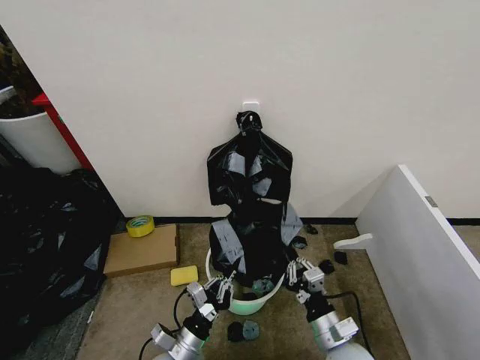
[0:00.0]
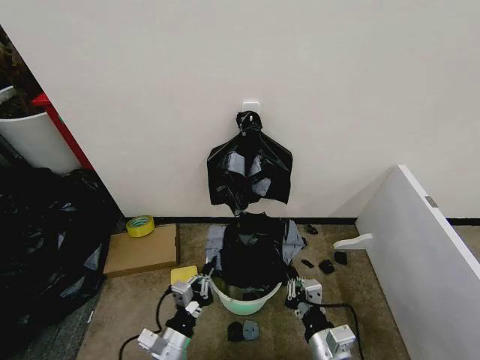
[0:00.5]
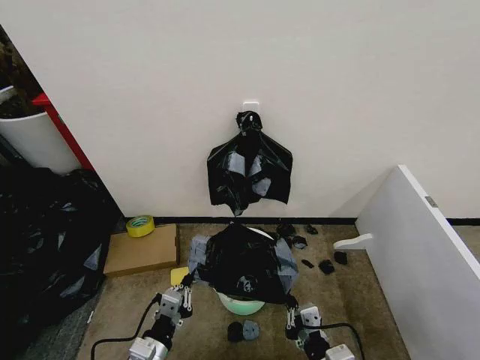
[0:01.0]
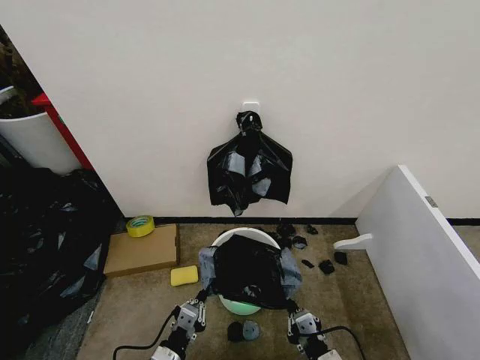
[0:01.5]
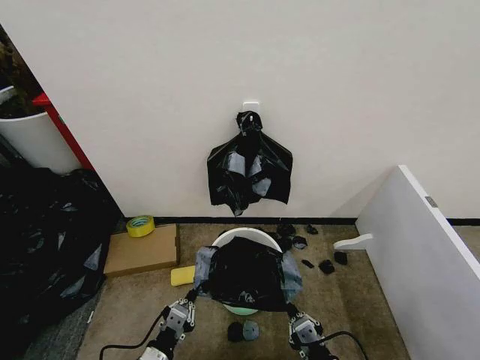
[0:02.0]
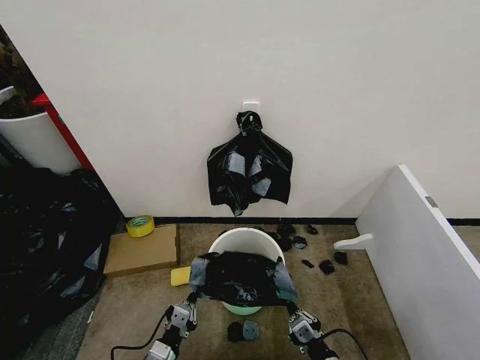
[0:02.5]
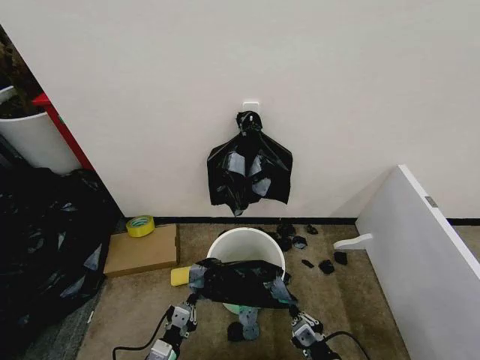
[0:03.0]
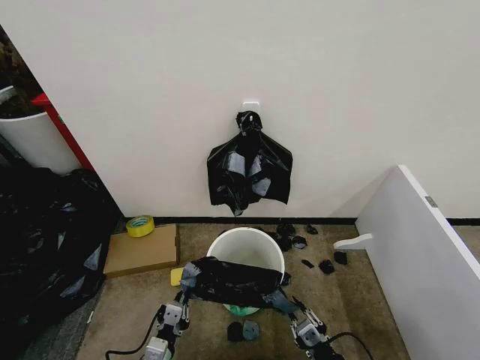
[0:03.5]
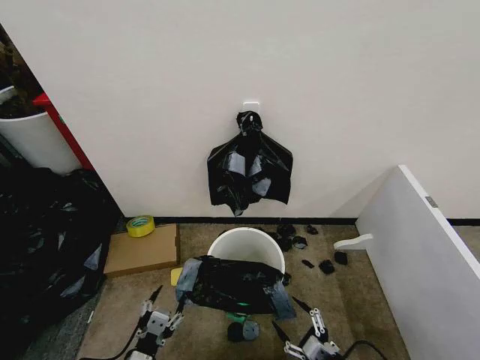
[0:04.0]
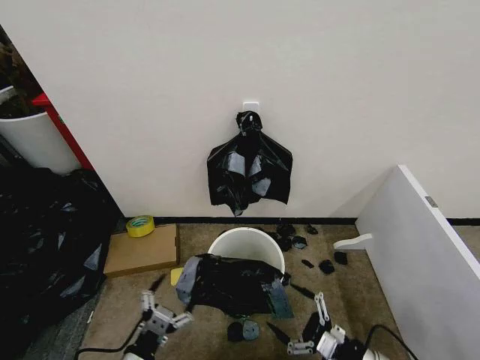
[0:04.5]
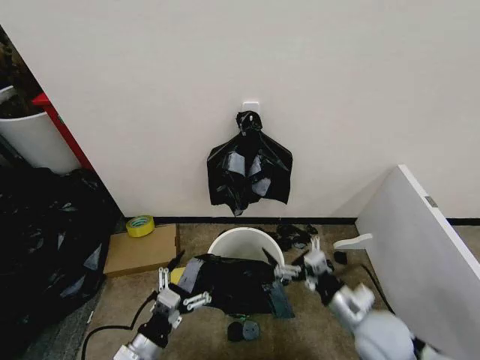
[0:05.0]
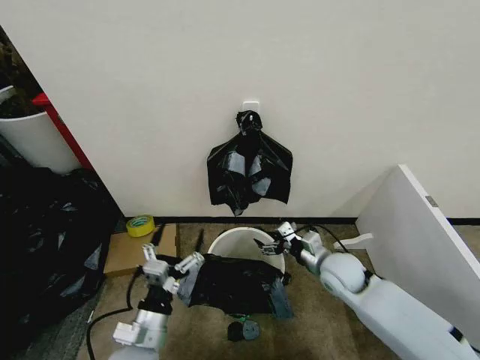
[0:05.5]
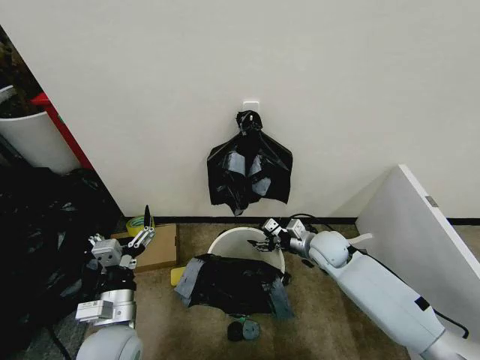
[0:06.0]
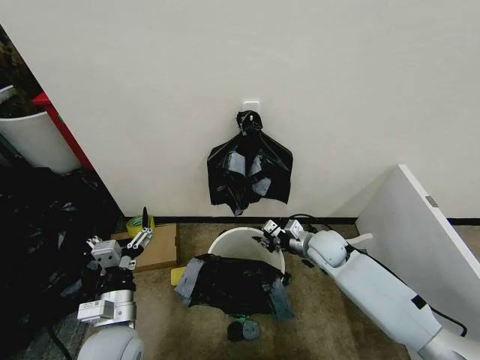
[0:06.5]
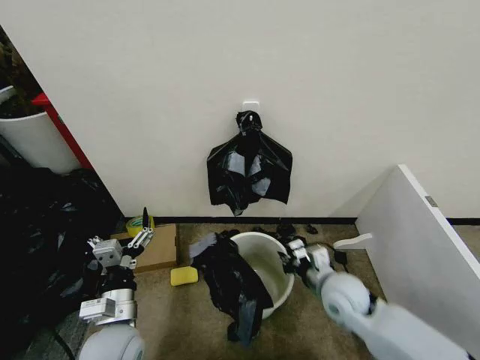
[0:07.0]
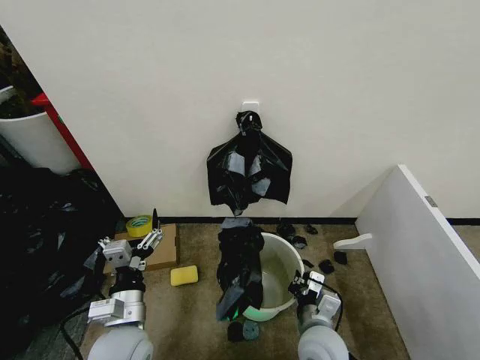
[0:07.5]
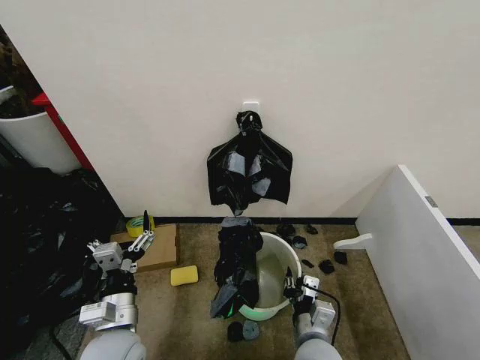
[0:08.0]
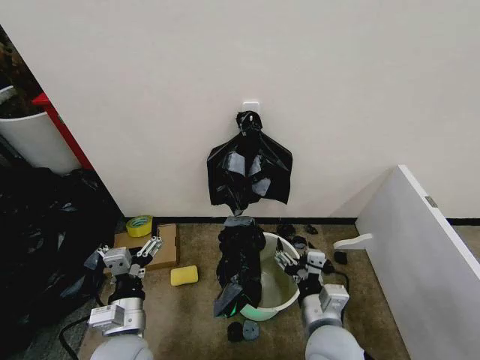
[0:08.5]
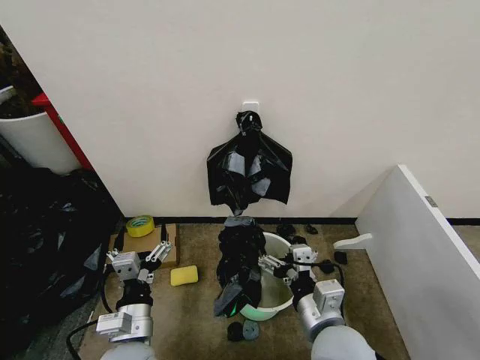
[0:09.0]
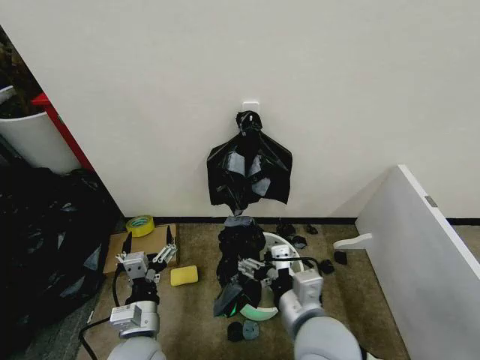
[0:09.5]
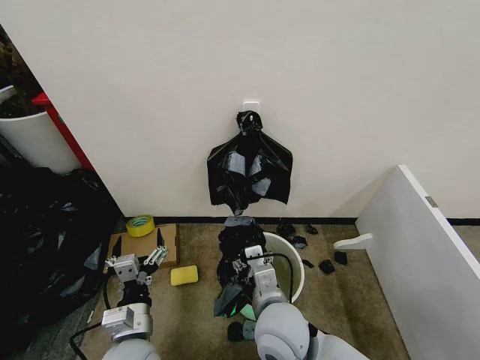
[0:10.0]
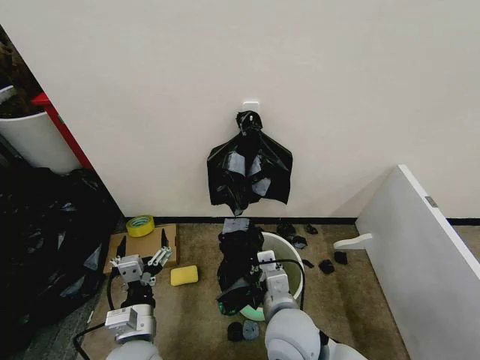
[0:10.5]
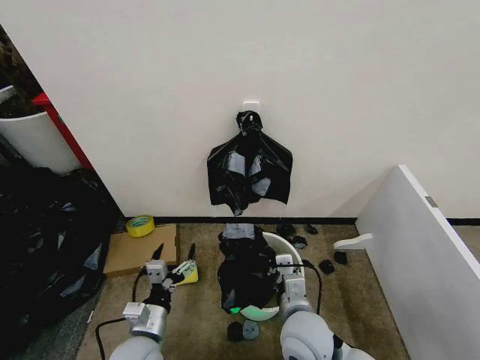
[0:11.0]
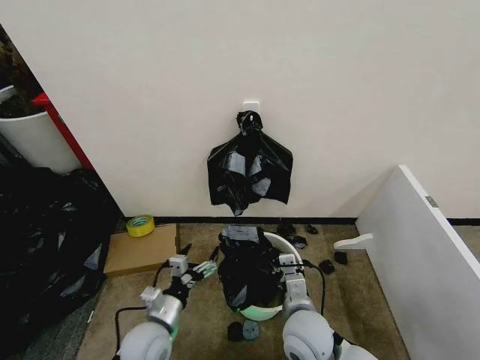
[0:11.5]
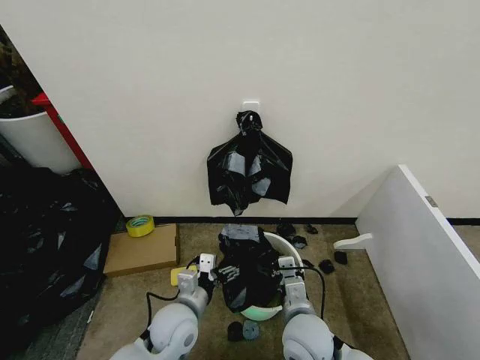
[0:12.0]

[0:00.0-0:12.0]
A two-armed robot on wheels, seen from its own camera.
Task of the whole recording: Place the garbage bag over the trash bin.
0.0 to 2.0 s: The right gripper shifts about 10 cm backward. Meanwhile the left gripper heads to the left, covering about 5 cm.
2.0 to 4.0 s: The right gripper goes approximately 5 cm to the right, and opens, while the left gripper opens.
4.0 to 6.0 s: The right gripper travels forward by some 35 cm; the left gripper is displaced forward and upward by roughly 15 cm.
6.0 to 8.0 s: The right gripper heads backward, covering about 25 cm, and closes up.
8.0 to 10.0 s: The right gripper is displaced upward and to the left by some 15 cm, and opens and closes again.
10.0 to 12.0 s: The right gripper travels downward and to the right by about 10 cm, and closes, while the left gripper goes roughly 10 cm forward and to the right.

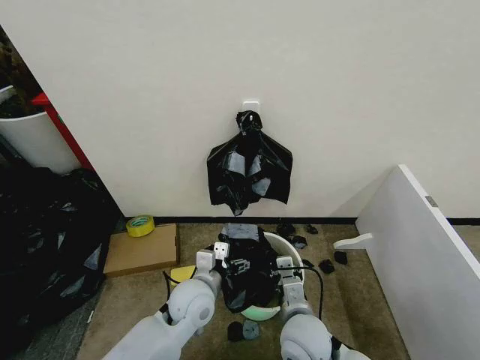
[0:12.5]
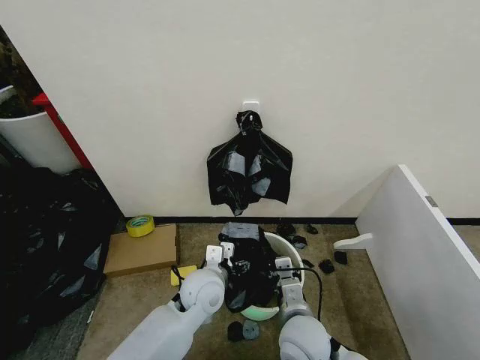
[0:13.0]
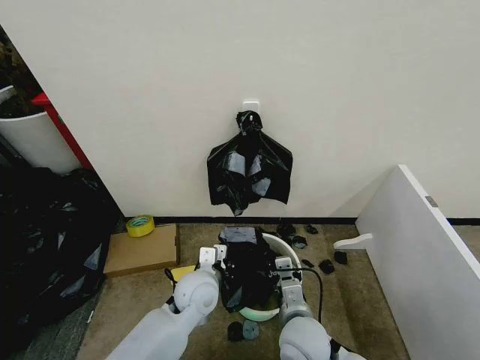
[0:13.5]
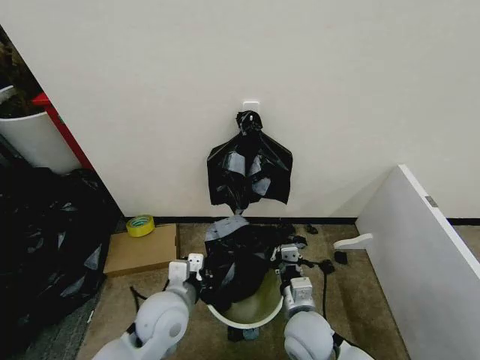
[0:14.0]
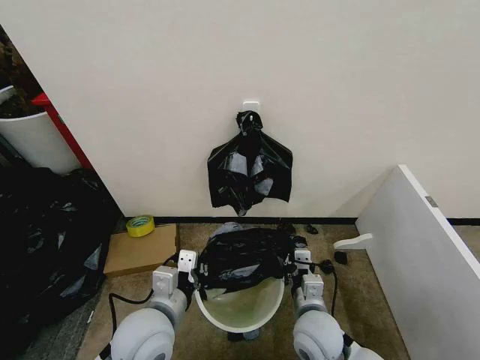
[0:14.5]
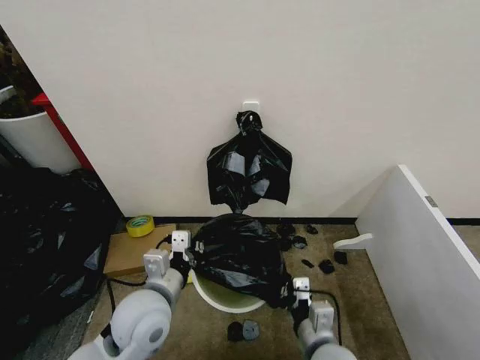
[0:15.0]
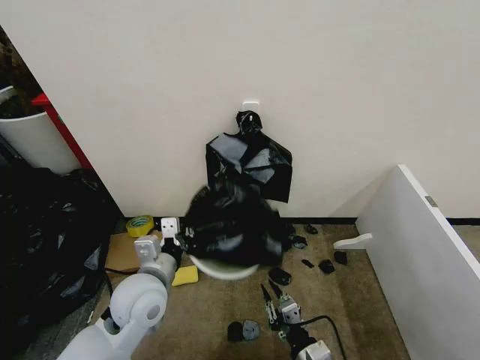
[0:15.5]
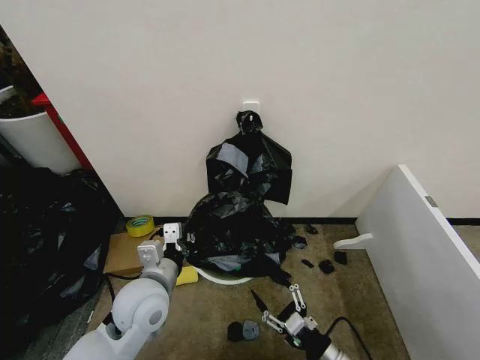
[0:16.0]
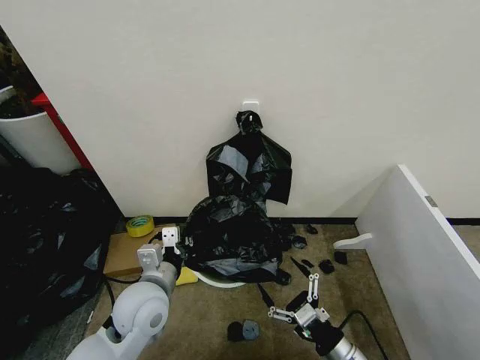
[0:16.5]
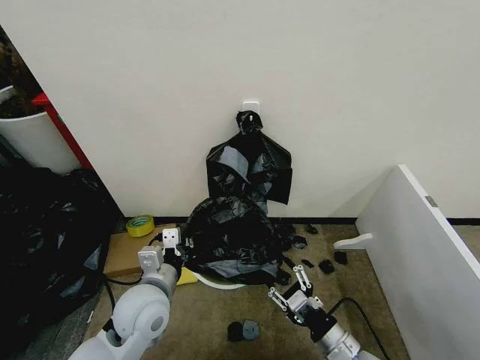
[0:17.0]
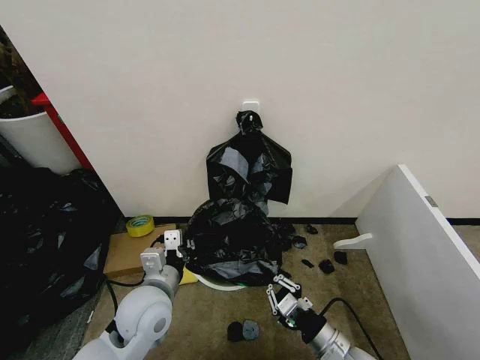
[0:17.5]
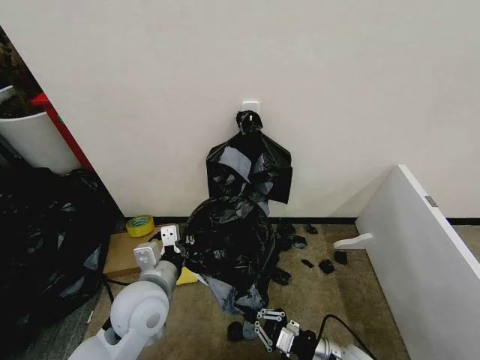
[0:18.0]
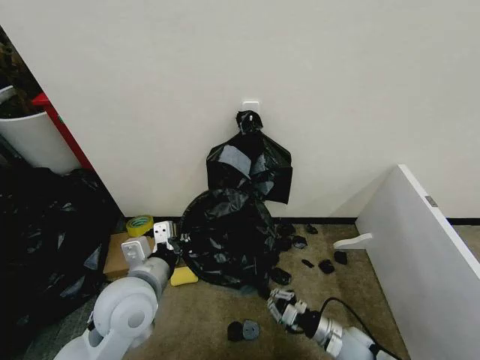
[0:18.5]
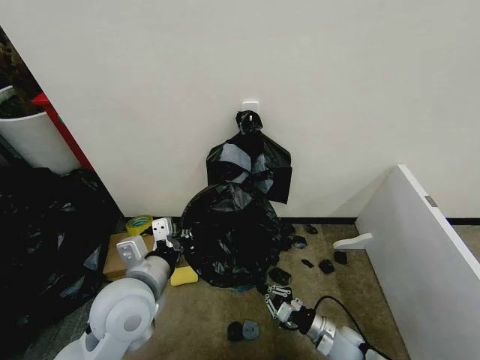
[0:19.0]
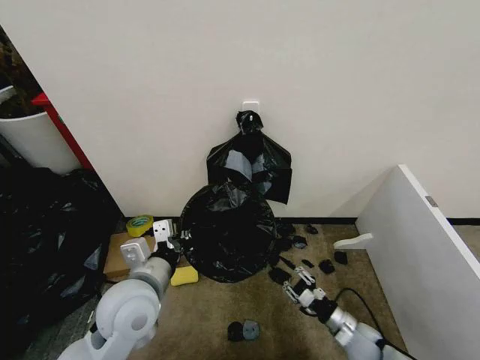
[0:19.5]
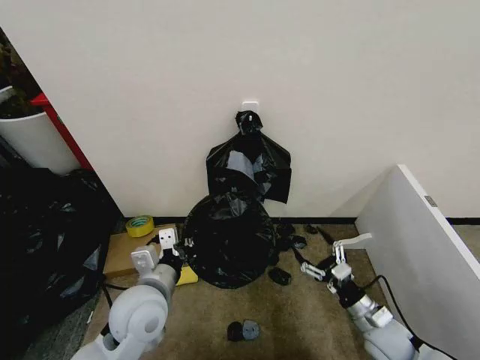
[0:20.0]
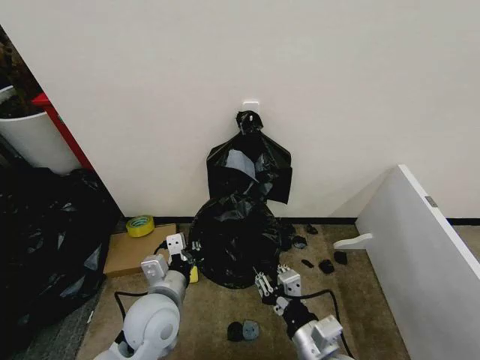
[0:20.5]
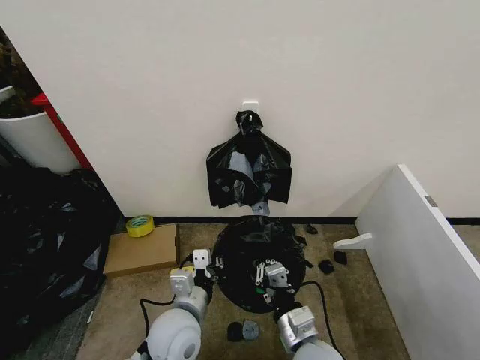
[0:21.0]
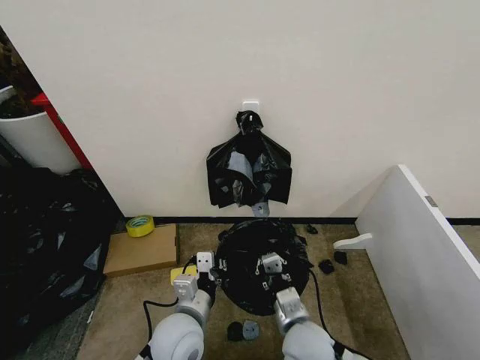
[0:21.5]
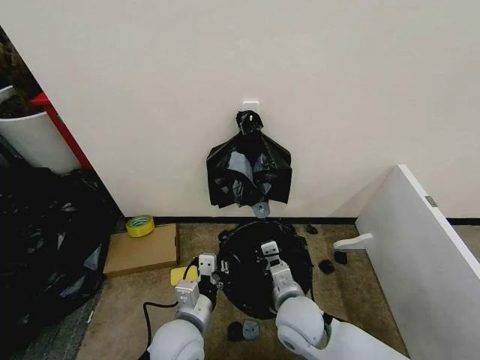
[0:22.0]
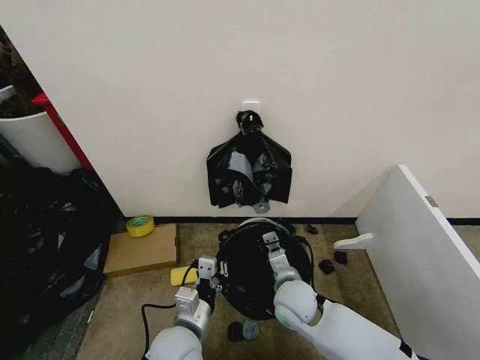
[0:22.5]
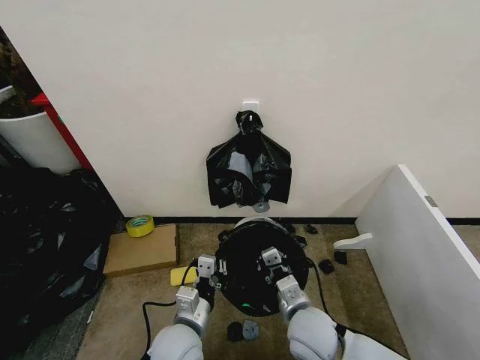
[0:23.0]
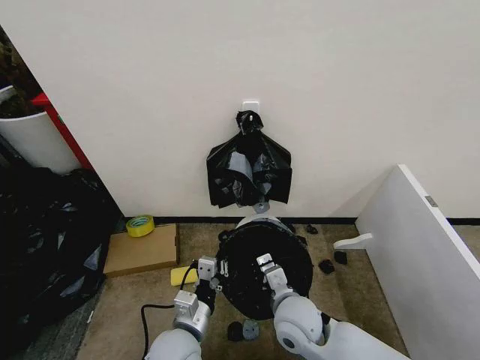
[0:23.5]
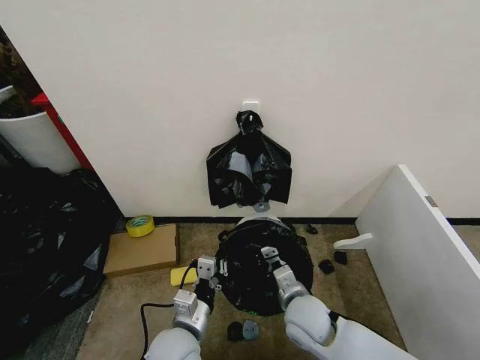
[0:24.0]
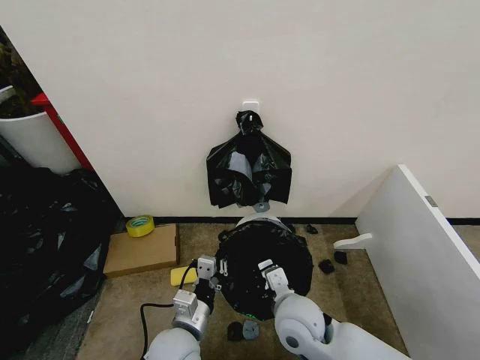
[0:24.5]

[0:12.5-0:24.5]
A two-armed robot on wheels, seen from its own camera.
Task of the whole recording: Place the garbage bag over the trash bin.
12.5 to 14.5 s: The left gripper moves backward, upward and to the left, some 10 cm, and closes up.
14.5 to 16.5 s: The left gripper shifts some 5 cm forward. The right gripper moves backward and to the right, approximately 15 cm, and opens.
16.5 to 18.5 s: The left gripper ends up roughly 5 cm from where it was. Meanwhile the right gripper goes about 15 cm downward and forward, and closes.
18.5 to 20.5 s: The left gripper travels downward by roughly 5 cm. The right gripper goes approximately 25 cm upward, to the left and backward, and opens up.
20.5 to 22.5 s: The left gripper moves downward, some 5 cm; the right gripper goes some 15 cm forward, and closes up.
22.5 to 24.5 s: The right gripper goes approximately 5 cm backward.

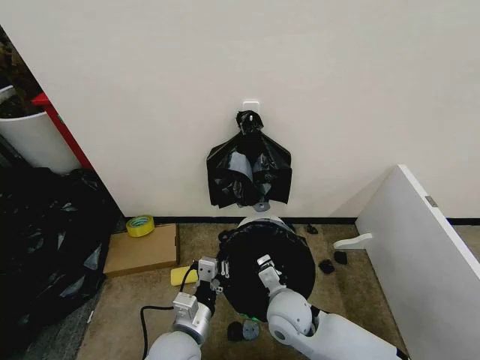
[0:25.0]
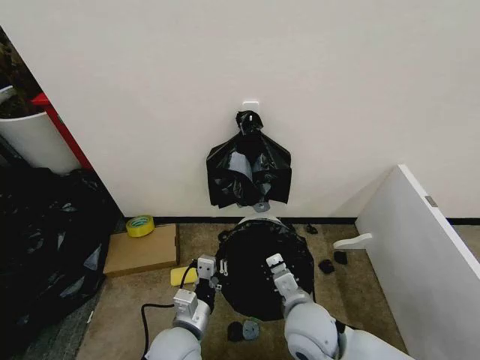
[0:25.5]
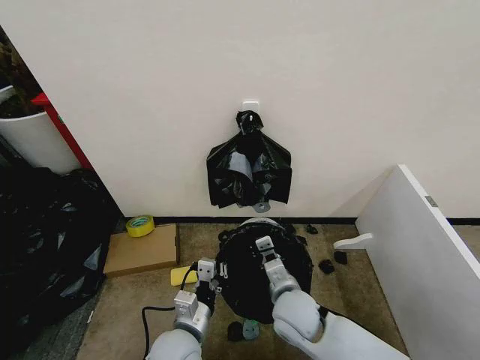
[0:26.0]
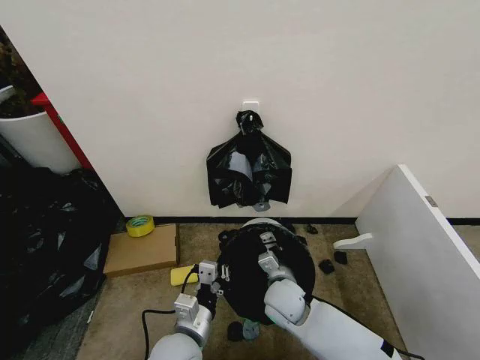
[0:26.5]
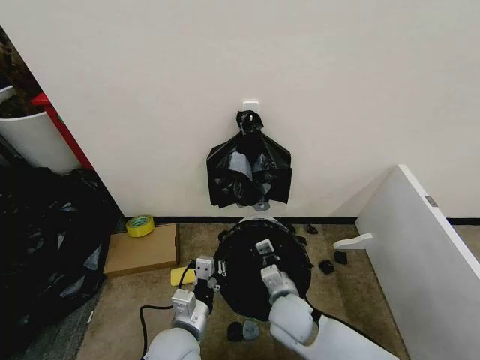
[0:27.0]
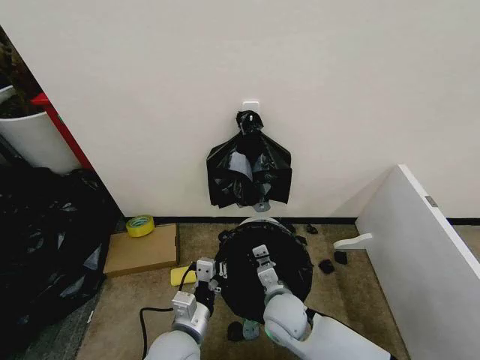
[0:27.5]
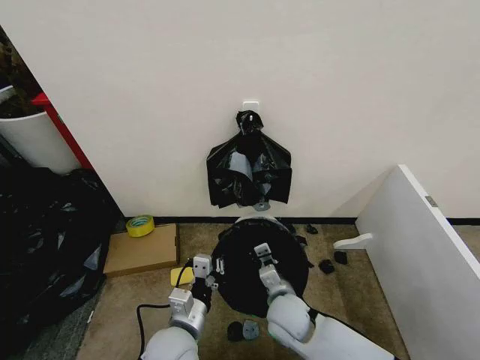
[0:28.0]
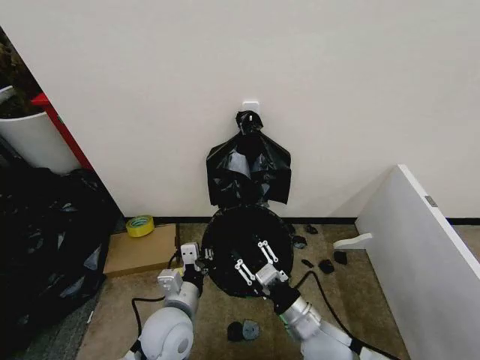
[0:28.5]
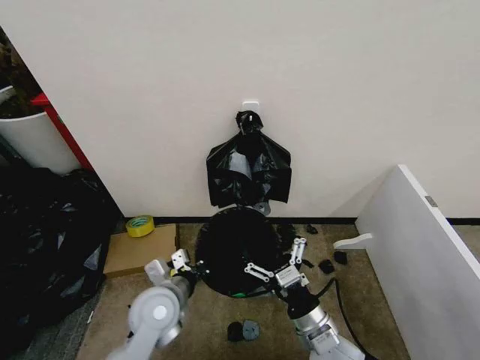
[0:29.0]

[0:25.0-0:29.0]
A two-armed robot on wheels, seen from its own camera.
Task of the whole recording: Place the garbage bag over the trash bin.
25.0 to 27.0 s: The right gripper goes backward and returns, some 5 cm each way.
27.0 to 29.0 s: The left gripper moves forward and to the left, roughly 10 cm; the right gripper is displaced backward and to the right by roughly 10 cm, and opens up.
